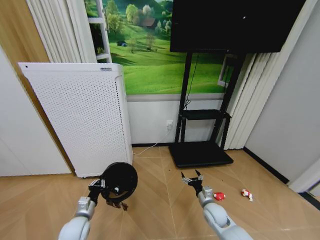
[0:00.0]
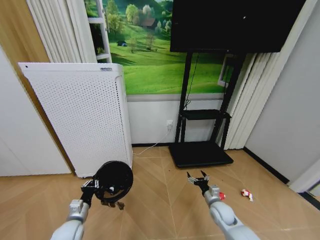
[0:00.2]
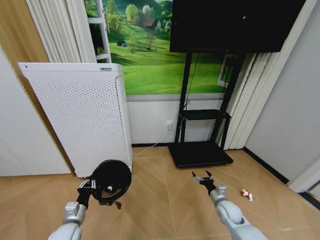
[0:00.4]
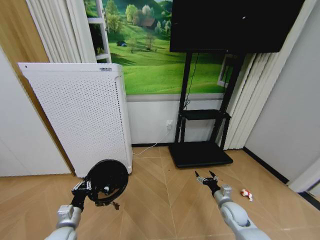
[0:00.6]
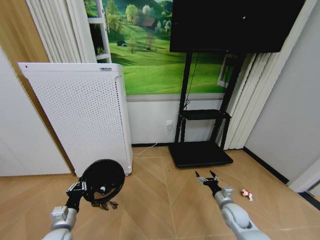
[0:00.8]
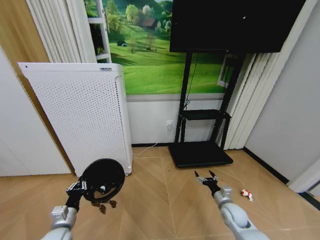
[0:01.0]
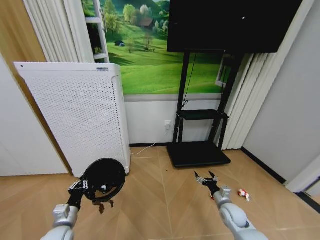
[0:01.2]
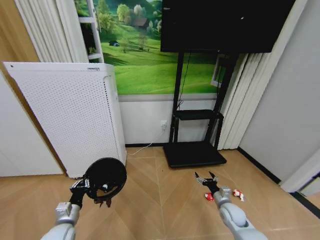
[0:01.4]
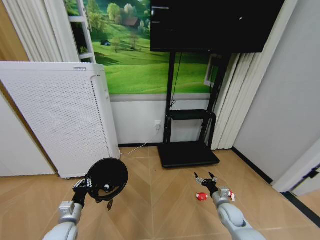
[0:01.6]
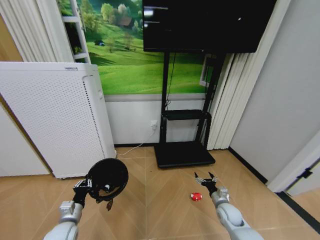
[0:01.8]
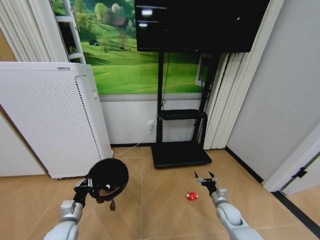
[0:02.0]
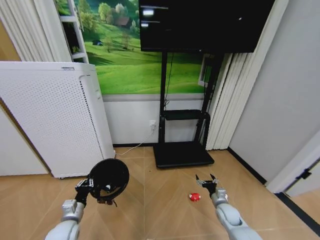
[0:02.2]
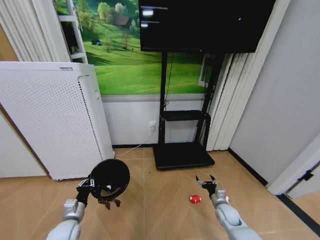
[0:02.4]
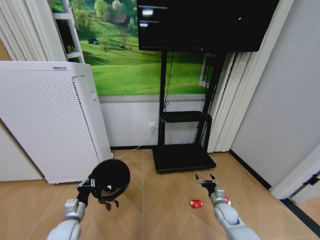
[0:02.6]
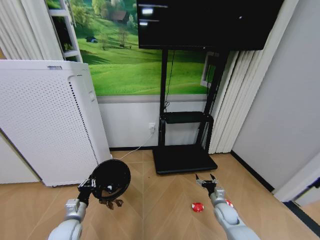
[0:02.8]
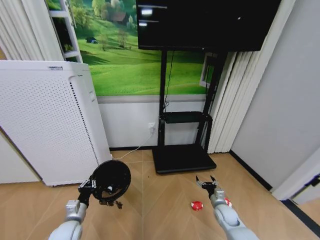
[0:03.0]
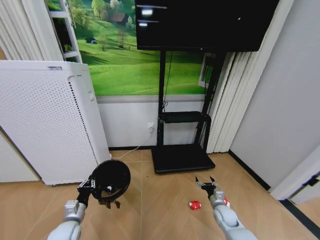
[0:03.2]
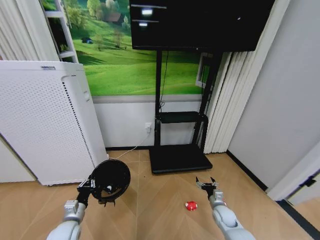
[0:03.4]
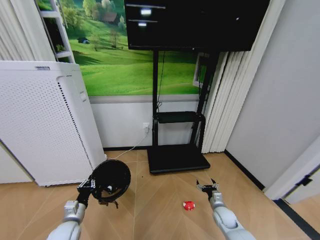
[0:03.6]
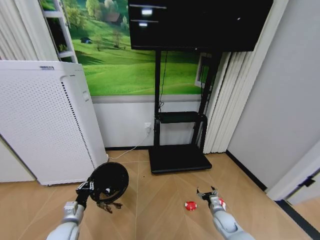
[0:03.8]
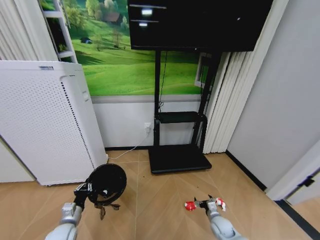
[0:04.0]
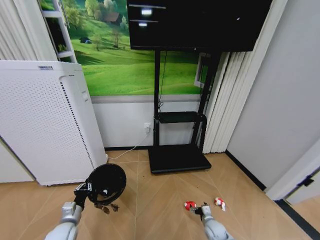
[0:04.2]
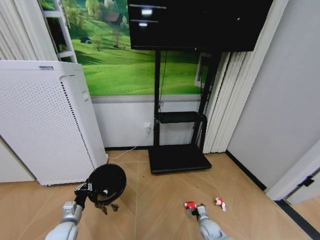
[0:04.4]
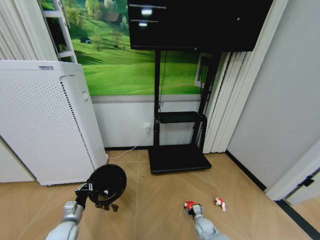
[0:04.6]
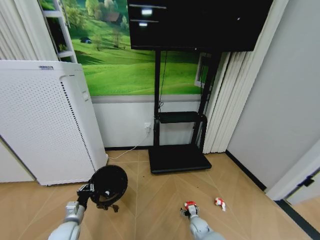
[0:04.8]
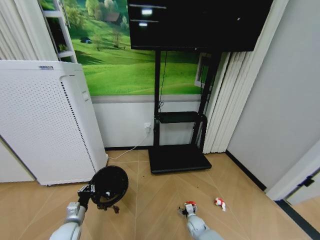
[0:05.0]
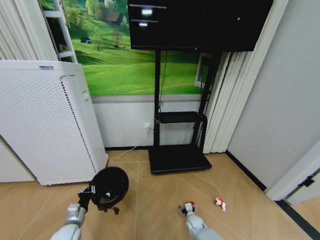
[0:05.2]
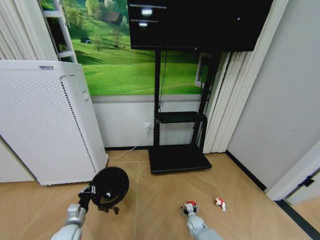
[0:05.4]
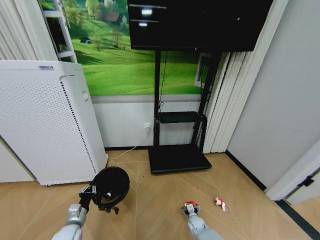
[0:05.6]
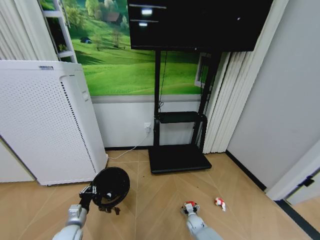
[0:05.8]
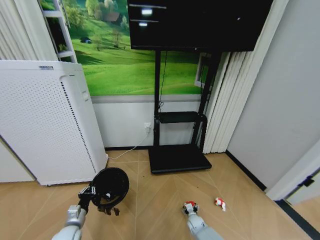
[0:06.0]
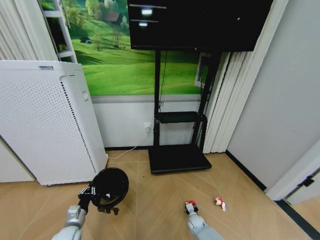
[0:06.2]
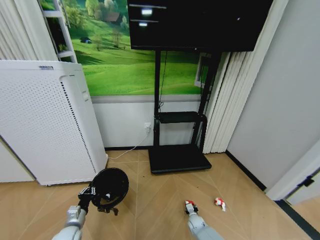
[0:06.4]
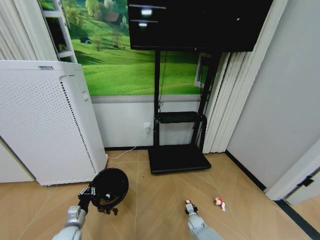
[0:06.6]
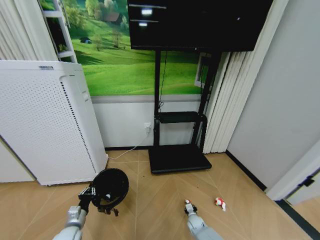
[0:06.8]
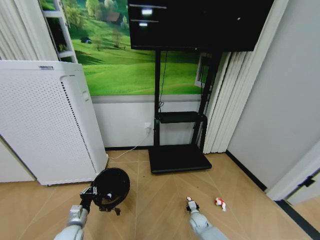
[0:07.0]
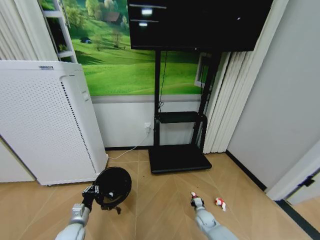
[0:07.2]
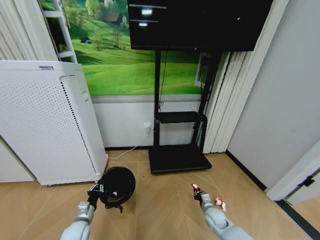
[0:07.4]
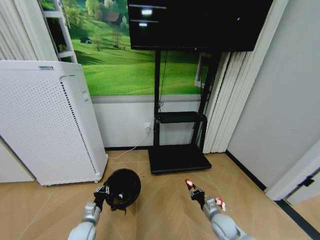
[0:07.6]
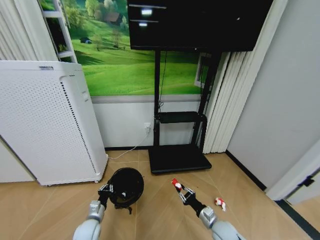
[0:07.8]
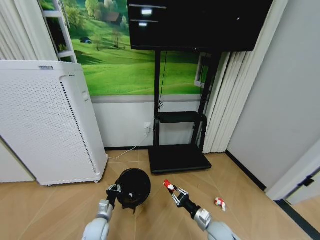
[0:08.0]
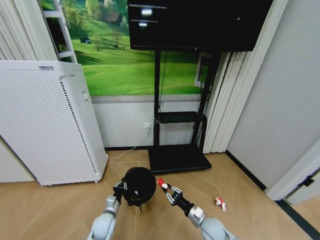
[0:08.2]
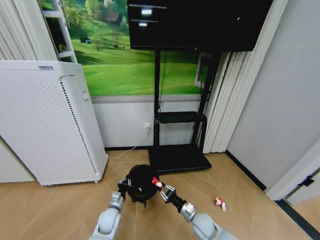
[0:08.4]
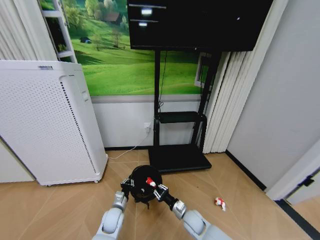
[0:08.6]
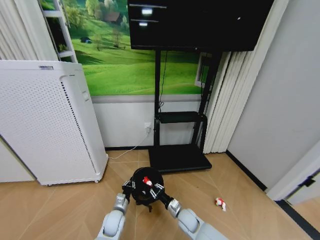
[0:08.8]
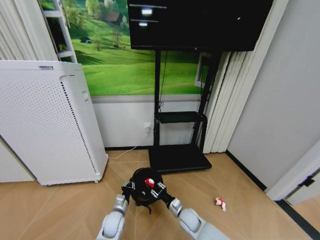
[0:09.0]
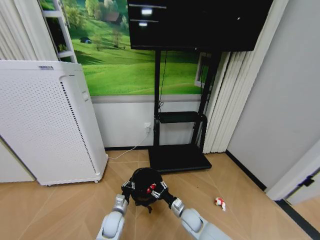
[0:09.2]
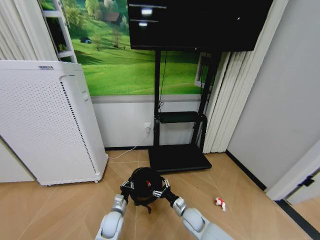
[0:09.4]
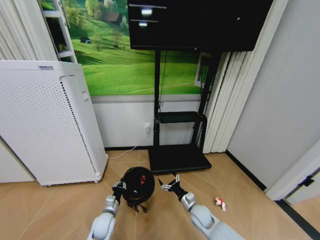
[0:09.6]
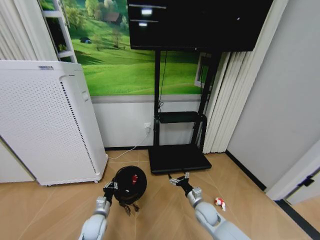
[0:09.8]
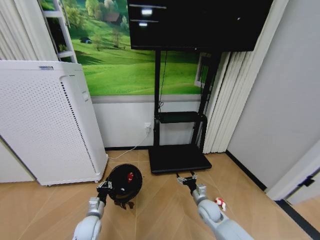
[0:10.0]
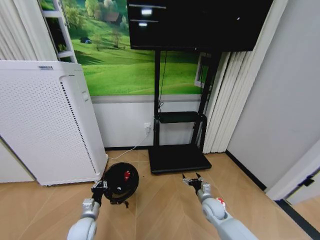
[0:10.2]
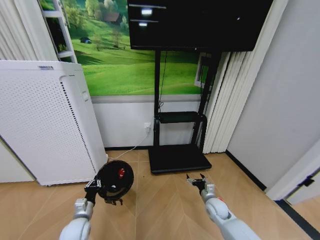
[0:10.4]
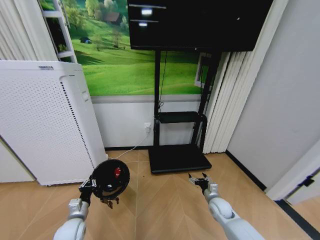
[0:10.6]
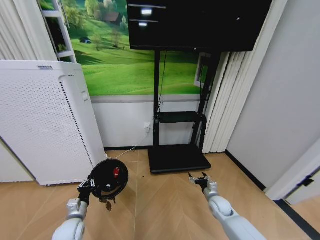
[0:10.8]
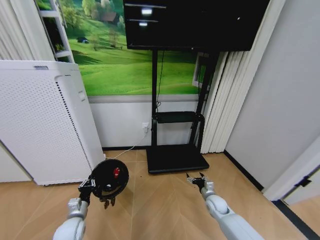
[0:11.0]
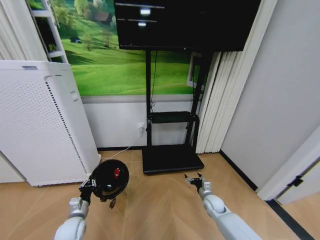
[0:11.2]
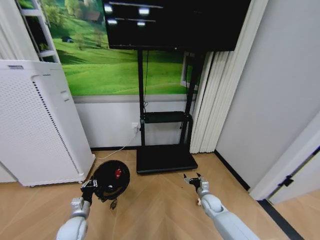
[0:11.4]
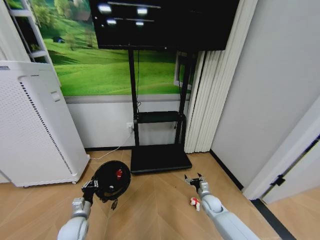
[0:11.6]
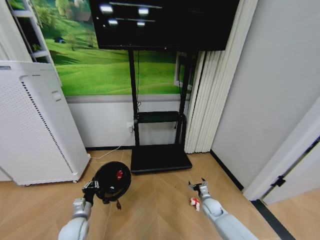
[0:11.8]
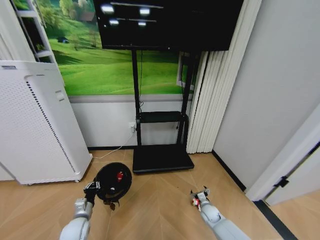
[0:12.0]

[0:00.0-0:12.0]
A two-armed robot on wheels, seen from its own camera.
Task of the whole recording: Pick up the trash bin and place the garbage on the floor into it.
0:00.0 to 0:01.6: The left gripper changes place by some 5 cm; the right gripper shifts approximately 10 cm to the right.
0:03.0 to 0:04.4: The right gripper shifts about 10 cm downward and to the left.
0:04.4 to 0:06.0: The right gripper goes roughly 5 cm downward.
0:06.0 to 0:07.6: The right gripper shifts roughly 20 cm upward, and closes up. The left gripper shifts by roughly 5 cm.
0:07.6 to 0:09.0: The left gripper is displaced to the right by roughly 10 cm. The right gripper travels to the left by about 15 cm.
0:09.0 to 0:10.4: The left gripper moves to the left and upward, approximately 15 cm; the right gripper heads to the right, covering about 15 cm, and opens up.
0:10.4 to 0:12.0: The right gripper travels downward by approximately 10 cm.

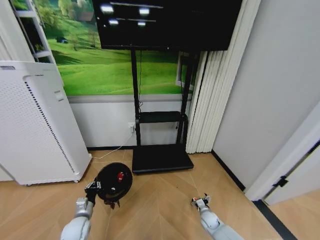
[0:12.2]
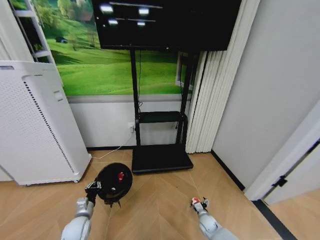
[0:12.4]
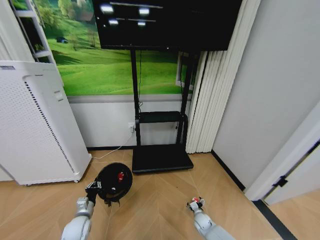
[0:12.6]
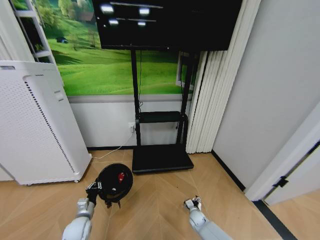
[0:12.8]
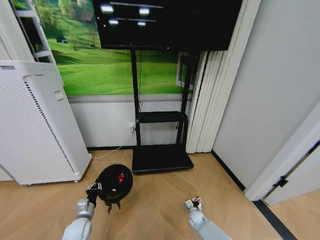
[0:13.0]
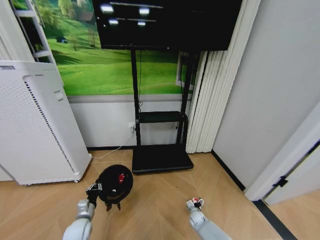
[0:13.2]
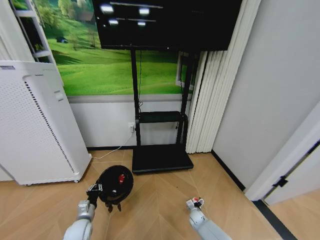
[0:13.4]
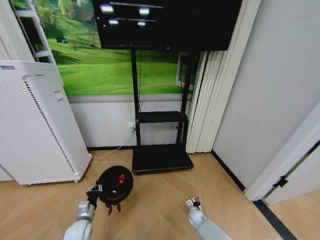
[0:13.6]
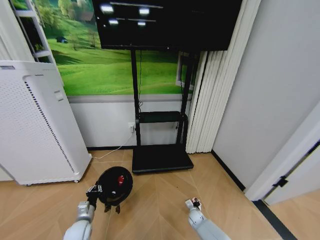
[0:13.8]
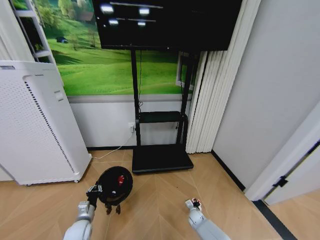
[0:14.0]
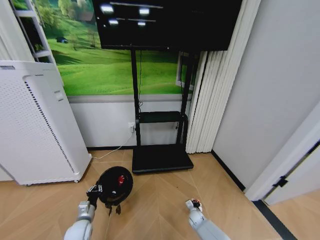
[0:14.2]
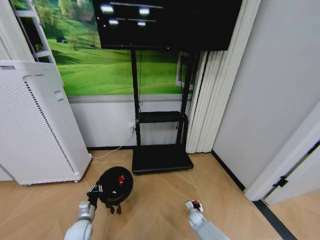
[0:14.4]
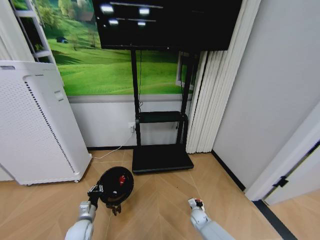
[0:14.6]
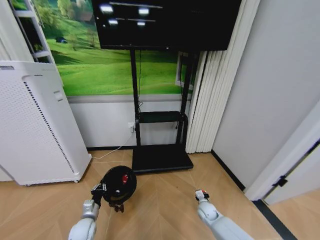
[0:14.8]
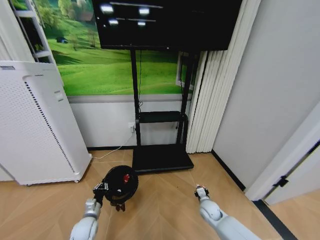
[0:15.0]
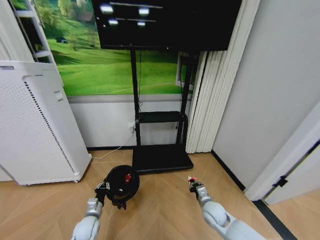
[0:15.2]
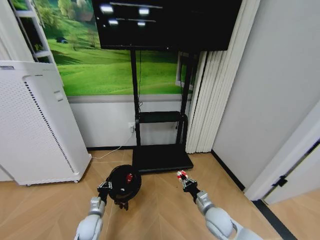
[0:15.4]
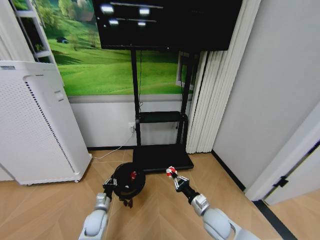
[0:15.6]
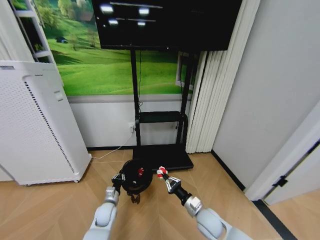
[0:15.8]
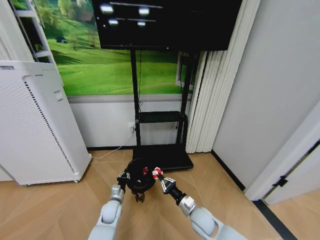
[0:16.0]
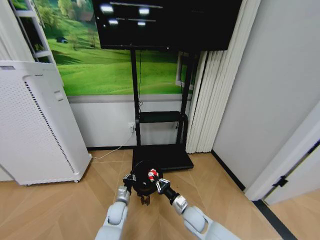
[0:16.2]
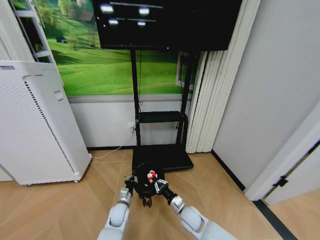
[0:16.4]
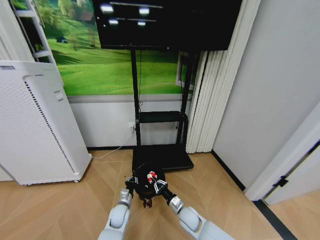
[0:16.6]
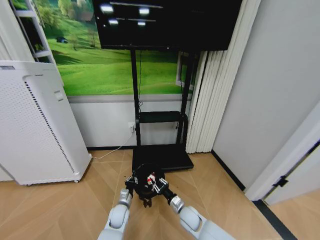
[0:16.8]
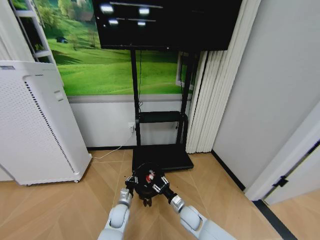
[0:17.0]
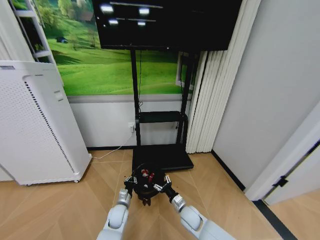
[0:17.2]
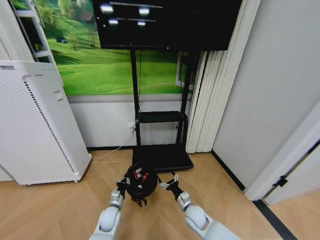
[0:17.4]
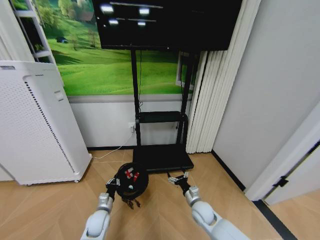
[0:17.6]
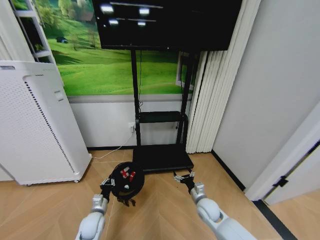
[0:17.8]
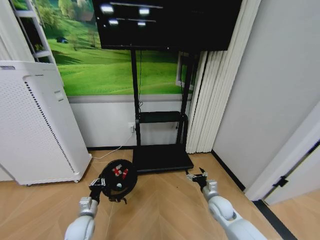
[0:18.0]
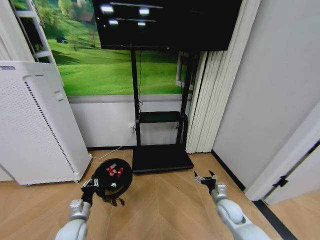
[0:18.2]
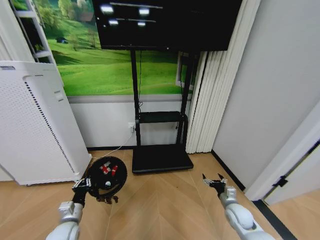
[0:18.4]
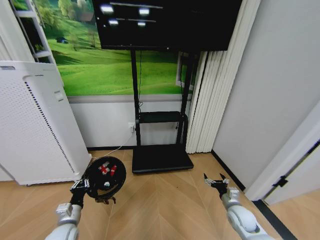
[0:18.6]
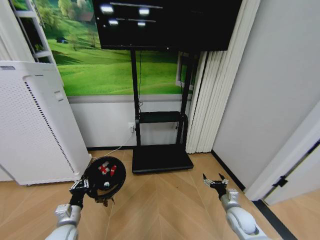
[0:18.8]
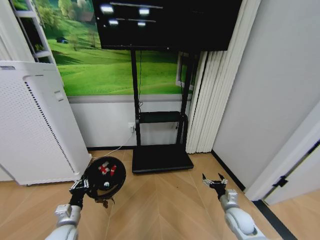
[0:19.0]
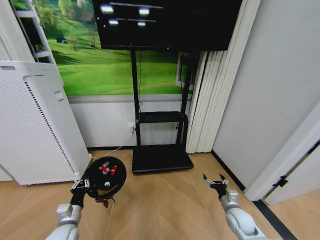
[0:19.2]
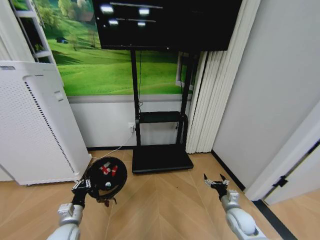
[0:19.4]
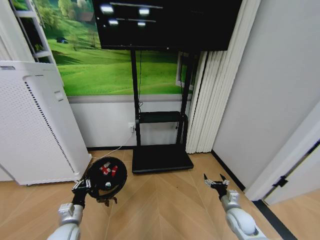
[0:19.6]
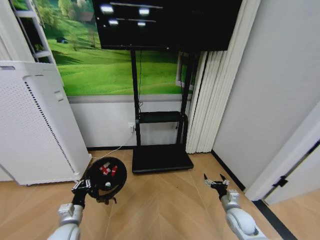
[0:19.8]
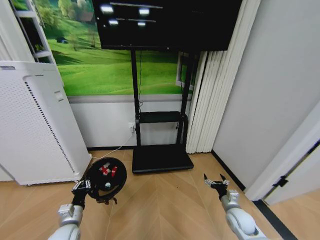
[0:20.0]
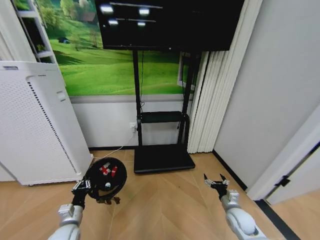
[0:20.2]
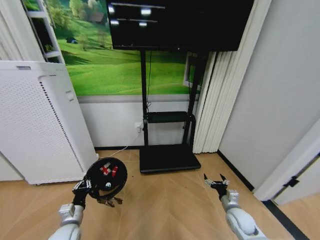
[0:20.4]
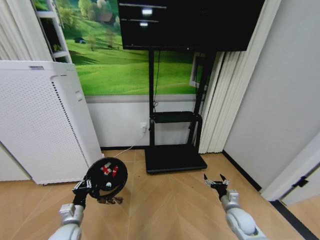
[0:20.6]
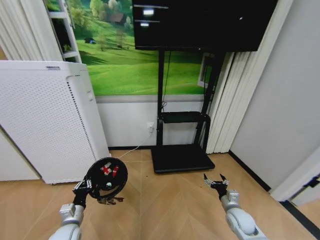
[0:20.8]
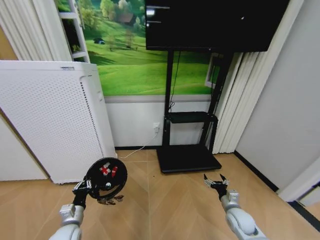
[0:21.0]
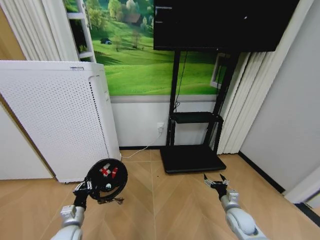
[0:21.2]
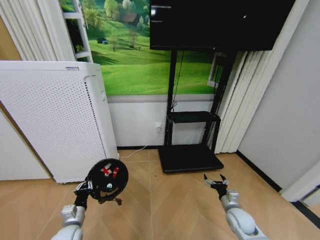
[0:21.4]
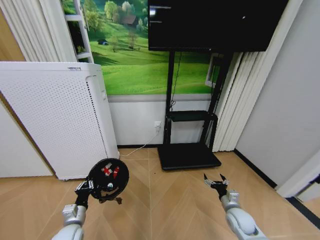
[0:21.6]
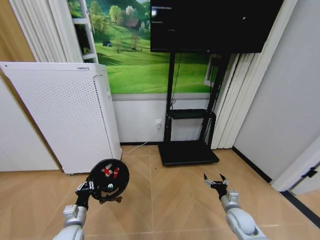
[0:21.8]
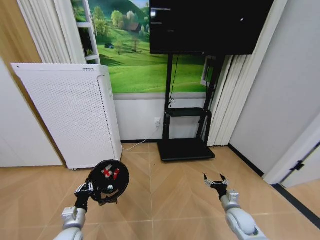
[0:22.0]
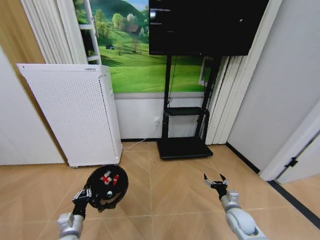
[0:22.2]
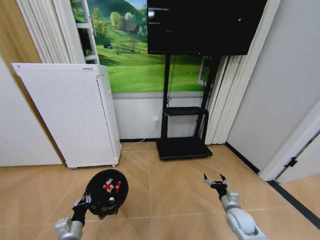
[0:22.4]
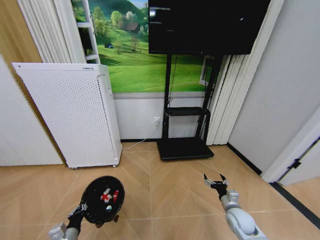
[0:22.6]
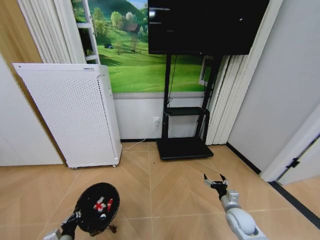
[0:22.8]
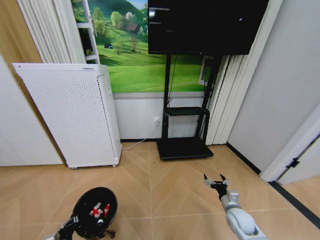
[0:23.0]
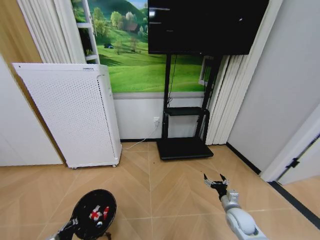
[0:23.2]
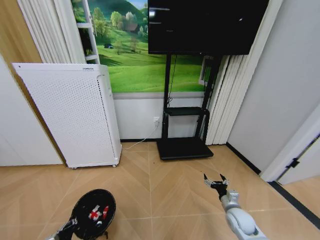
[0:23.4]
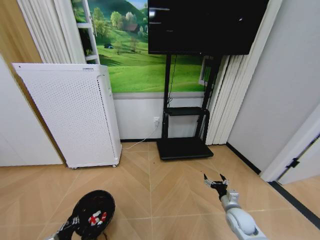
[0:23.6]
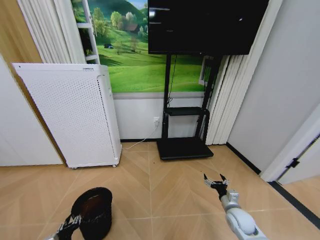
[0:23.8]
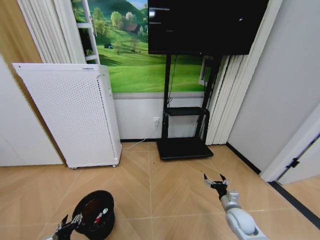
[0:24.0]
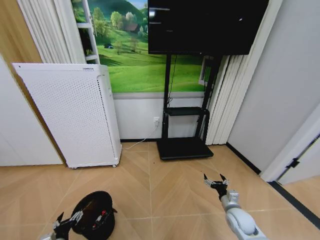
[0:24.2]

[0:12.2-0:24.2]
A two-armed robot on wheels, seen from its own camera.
Task of the whole recording: Pick up the trash bin and place the garbage on the floor into it.
0:12.2 to 0:13.8: The right gripper heads downward, covering some 5 cm, and closes up.
0:13.8 to 0:15.2: The right gripper heads upward, covering about 20 cm, and closes up.
0:15.2 to 0:16.6: The left gripper shifts approximately 15 cm to the right and forward; the right gripper travels to the left by some 10 cm.
0:16.6 to 0:18.2: The left gripper shifts approximately 20 cm to the left, backward and upward; the right gripper heads to the right, covering about 20 cm, and opens its fingers.
0:18.2 to 0:19.8: The grippers move only a little.
0:21.2 to 0:22.6: The left gripper heads backward, covering some 5 cm.
0:22.6 to 0:24.2: The left gripper opens its fingers.
